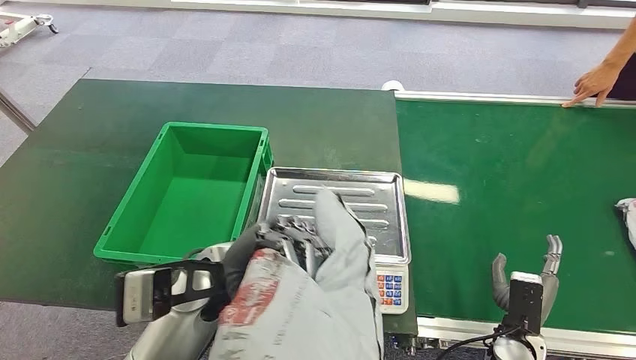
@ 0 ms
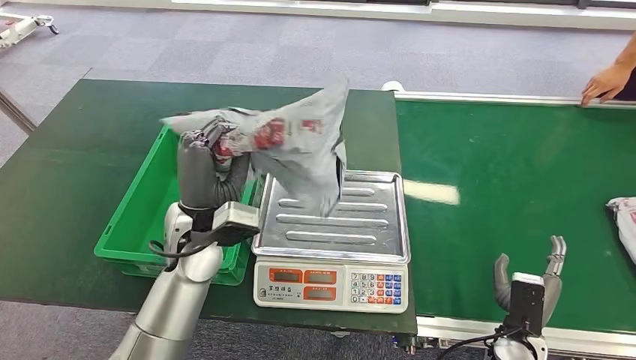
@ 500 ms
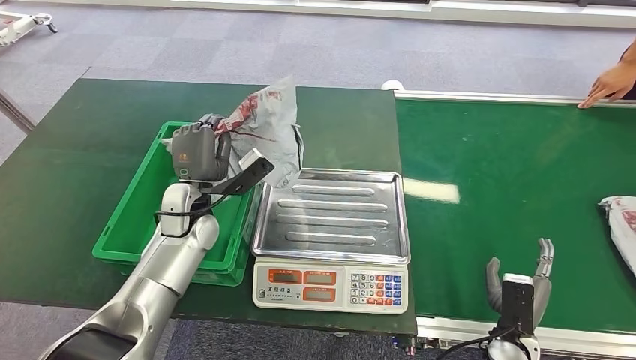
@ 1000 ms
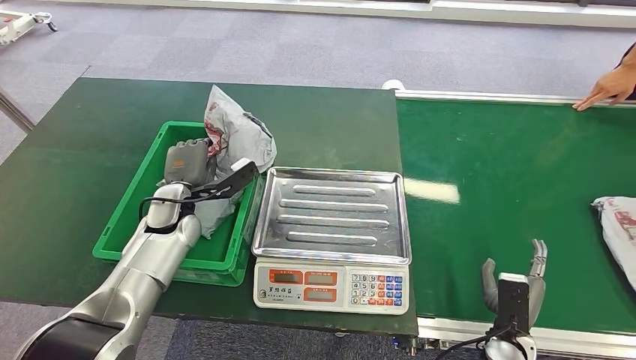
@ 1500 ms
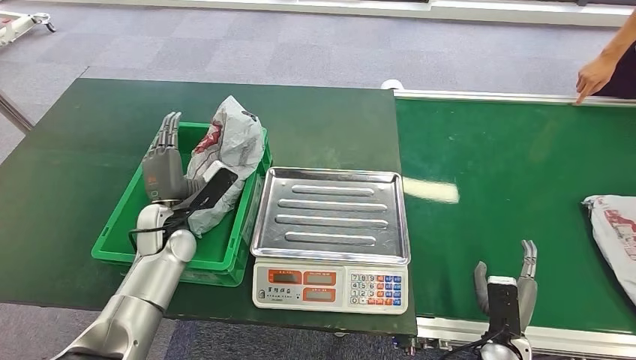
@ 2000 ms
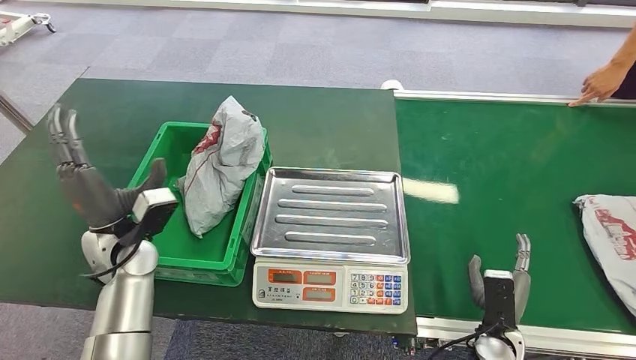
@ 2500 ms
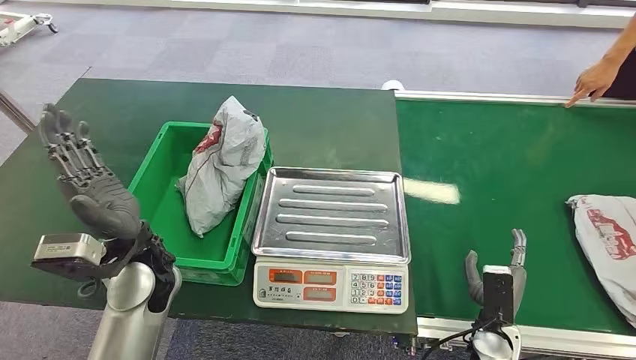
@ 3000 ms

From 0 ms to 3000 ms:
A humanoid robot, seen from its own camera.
Step, from 1000 ms to 2500 ms: Place the package into the parcel locker.
From 1500 ms to 3000 ms: The left hand moves backward and upward, some 10 cm.

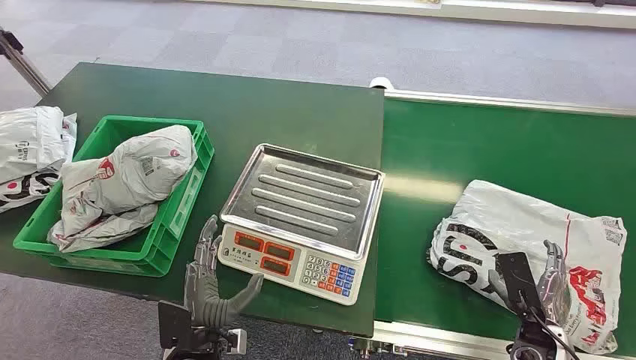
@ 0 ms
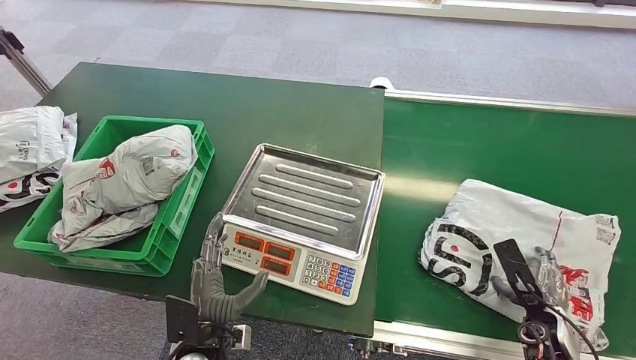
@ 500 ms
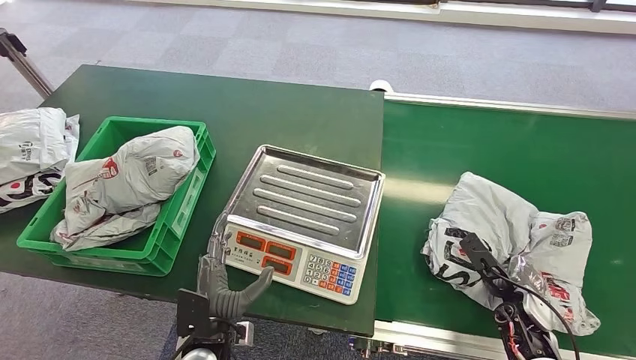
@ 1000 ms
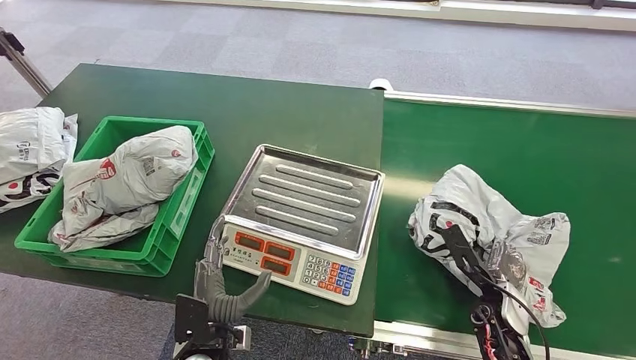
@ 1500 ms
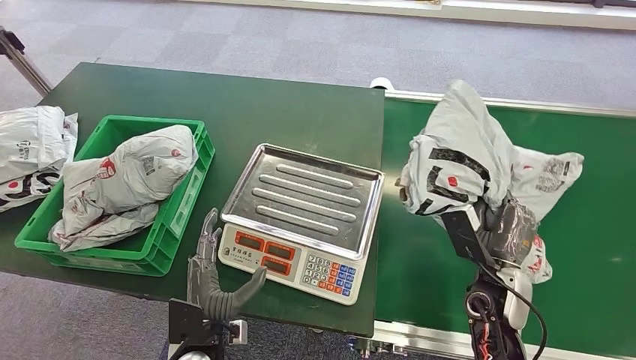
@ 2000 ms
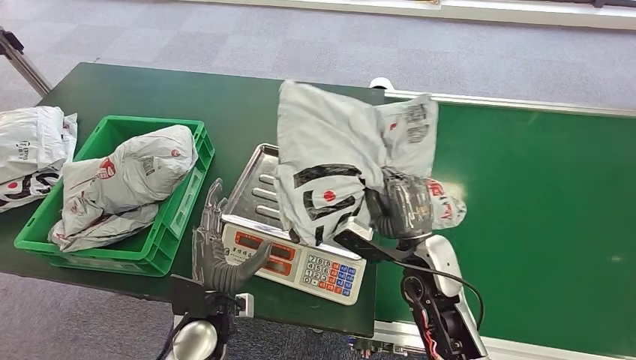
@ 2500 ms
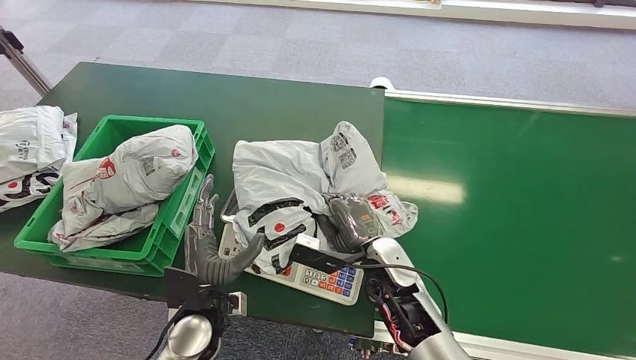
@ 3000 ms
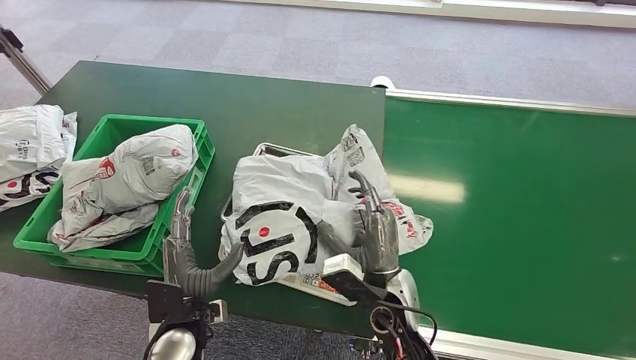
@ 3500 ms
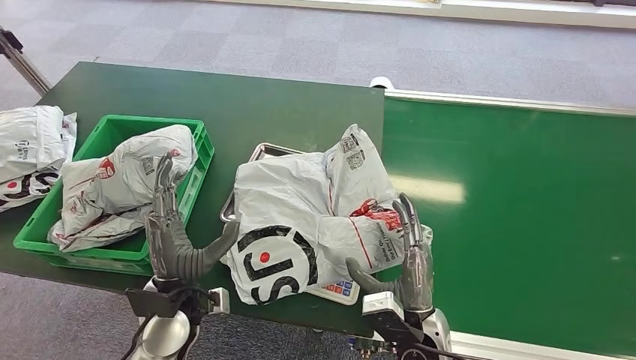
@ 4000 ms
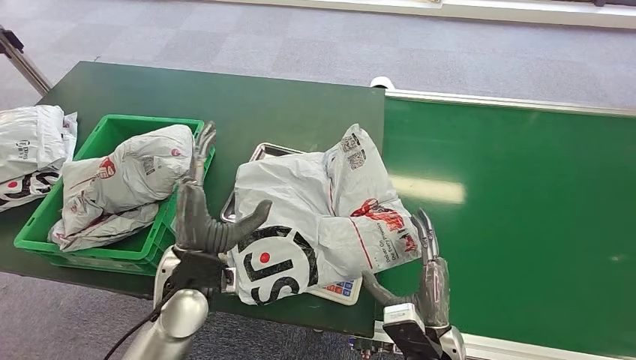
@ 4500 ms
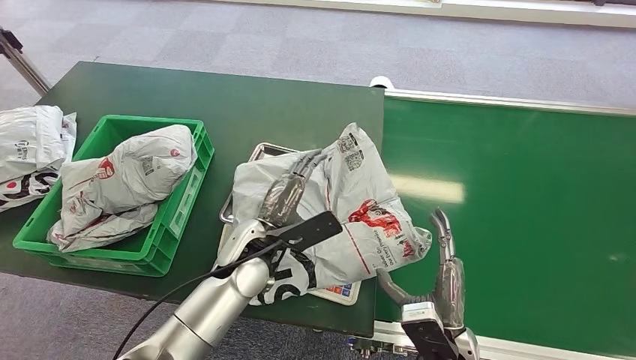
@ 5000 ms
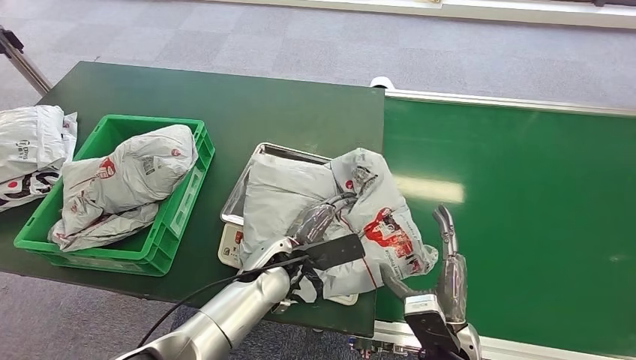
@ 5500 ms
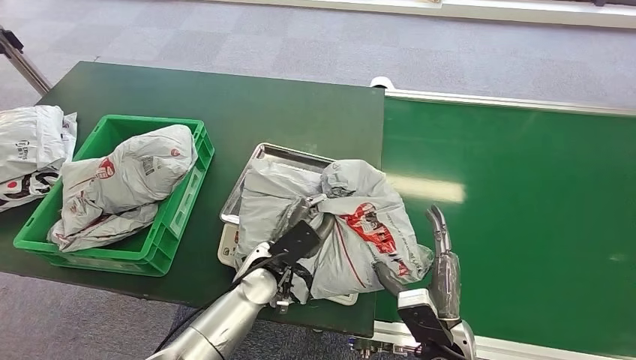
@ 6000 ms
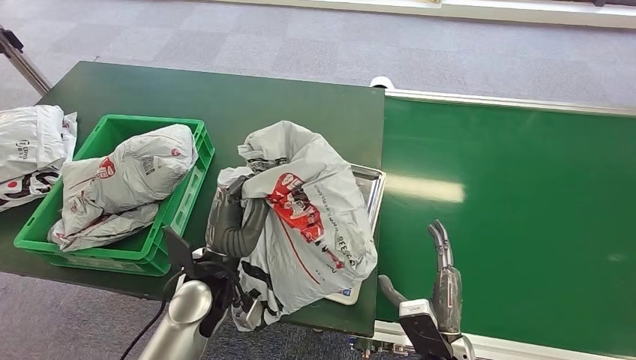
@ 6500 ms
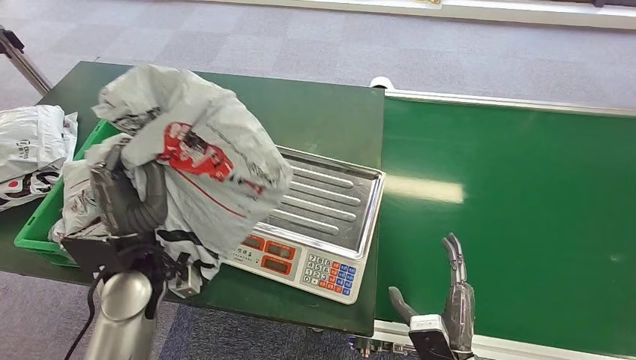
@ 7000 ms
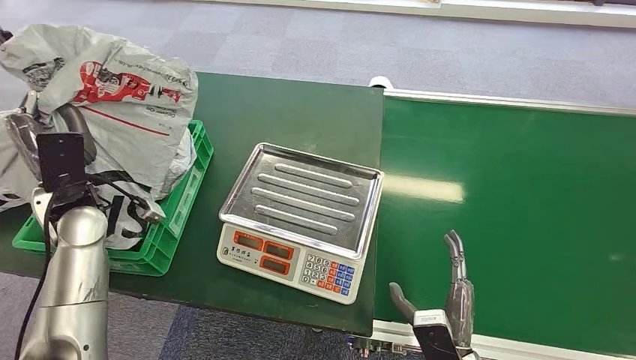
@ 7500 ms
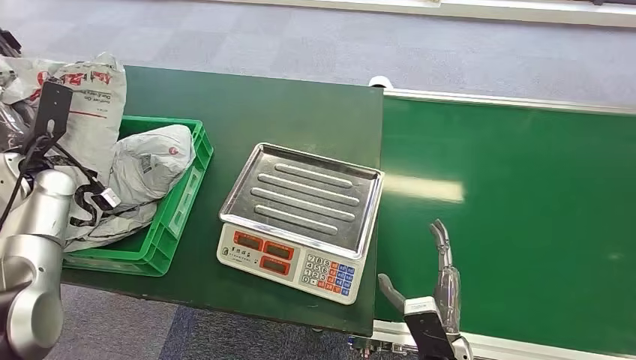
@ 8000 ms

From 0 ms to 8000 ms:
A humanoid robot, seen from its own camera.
Step, from 0 ms to 2000 ms: Pick up the package from the conveyor belt.
Step, from 3000 ms to 3500 ms: Place the package onto the inbound machine.
Step, from 5000 ms to 6500 ms: Pick up the package from the inbound machine.
From 4000 ms to 6000 ms: The left hand shifts some 15 cm to the right and forward.
